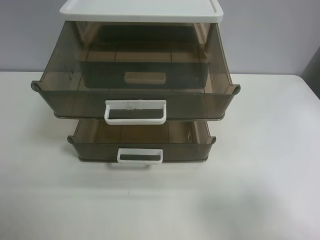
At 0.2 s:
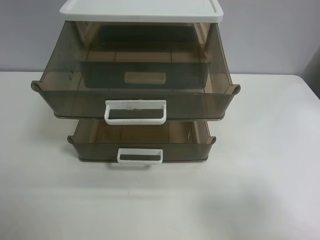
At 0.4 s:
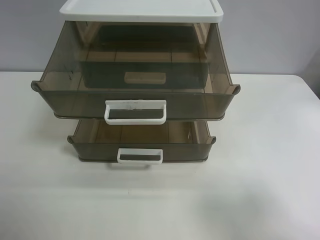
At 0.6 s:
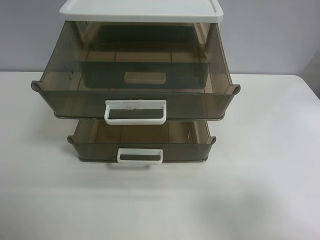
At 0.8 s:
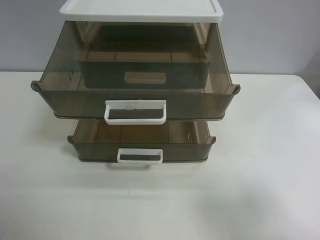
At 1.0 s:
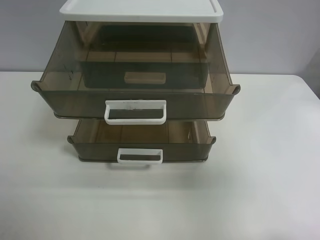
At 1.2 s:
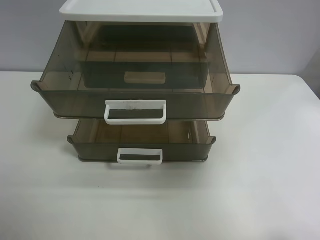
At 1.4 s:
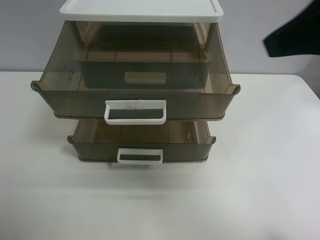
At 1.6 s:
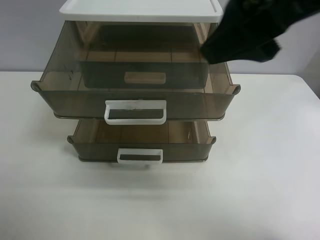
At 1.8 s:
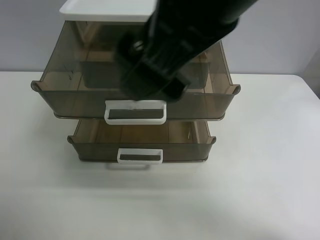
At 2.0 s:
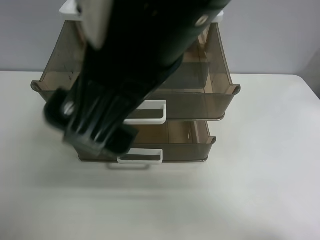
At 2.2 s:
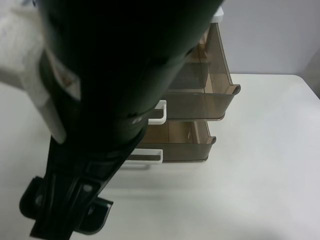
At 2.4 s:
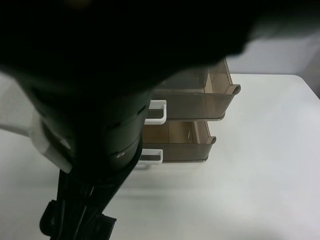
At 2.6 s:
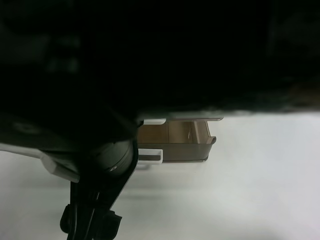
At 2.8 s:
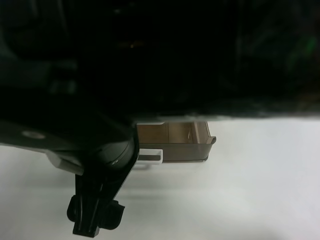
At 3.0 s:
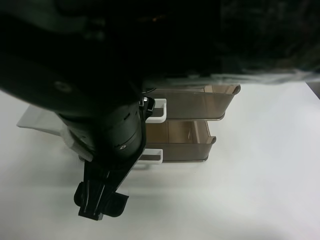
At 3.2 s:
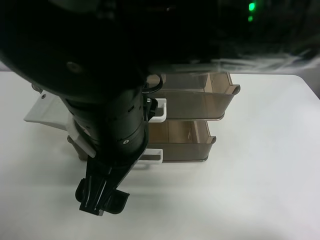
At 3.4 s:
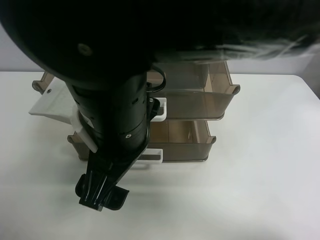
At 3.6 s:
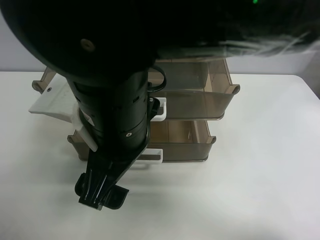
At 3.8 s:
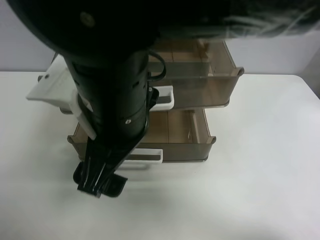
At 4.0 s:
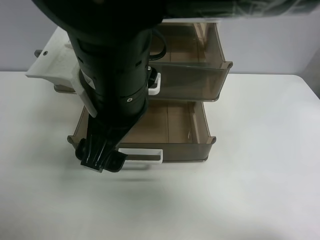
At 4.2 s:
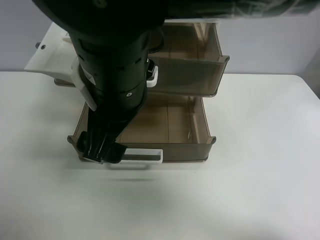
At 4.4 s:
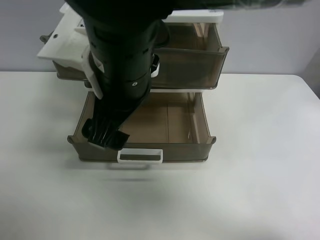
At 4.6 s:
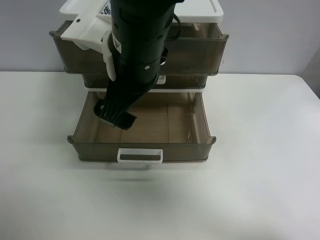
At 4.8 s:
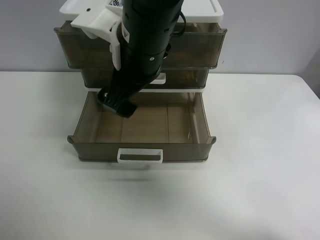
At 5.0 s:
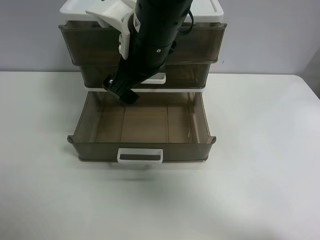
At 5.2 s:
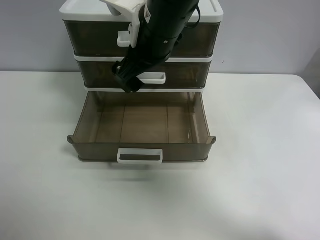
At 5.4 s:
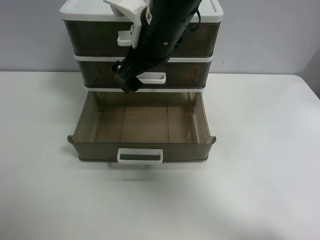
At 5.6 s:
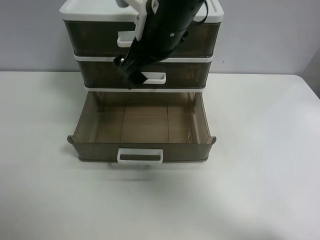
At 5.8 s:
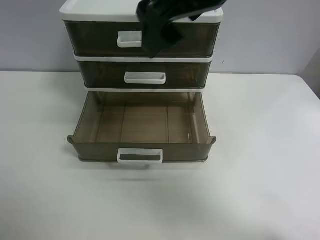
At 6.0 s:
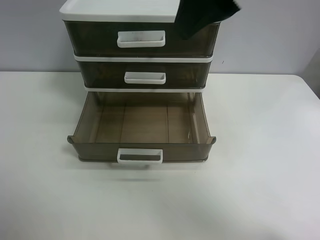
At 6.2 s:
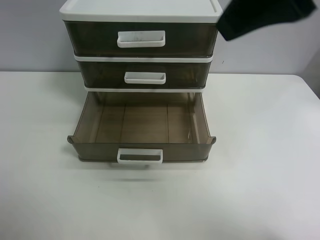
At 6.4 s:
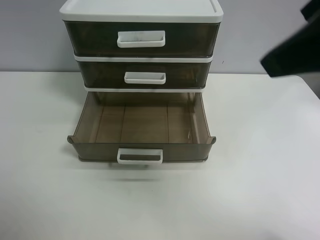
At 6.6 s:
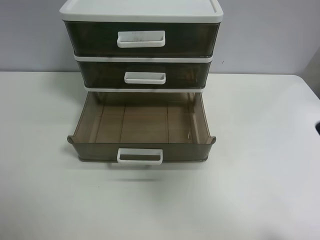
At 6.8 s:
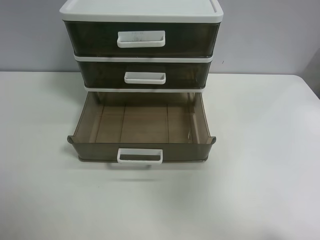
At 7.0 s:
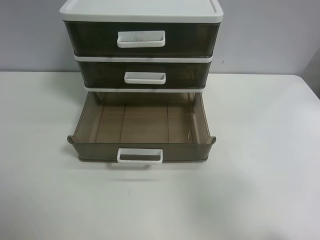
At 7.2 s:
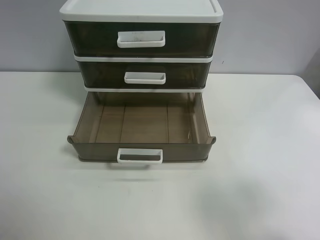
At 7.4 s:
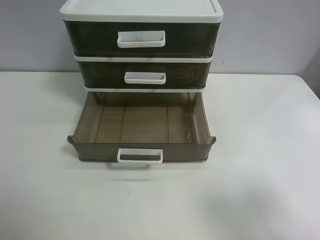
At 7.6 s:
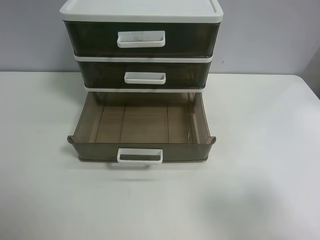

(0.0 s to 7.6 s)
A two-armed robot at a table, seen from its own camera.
Task of the whole recording: close the top drawer.
Step, 0.0 s - 3.6 s: Use the right gripper to touch the topmost layer of the storage cabinet.
Step, 3.8 s - 5.6 s: Push the top drawer closed.
0.0 s - 1.6 s: The right gripper goes approximately 25 cm to the left, forward and upward.
1.6 s - 3.0 s: The right gripper shifts about 20 cm to the left and downward.
3.0 s - 4.6 s: The right gripper goes some 10 cm forward.
4.6 s - 6.0 s: The right gripper heads upward and to the right, covering approximately 20 cm.
6.0 s - 7.6 s: The right gripper moves to the right, backward and downward, approximately 30 cm.
